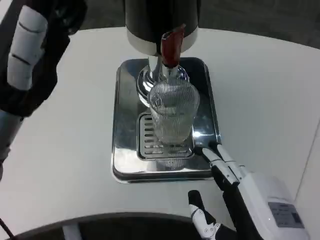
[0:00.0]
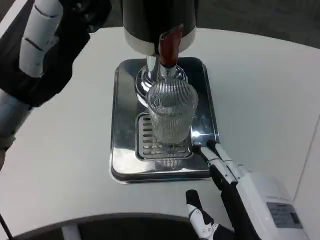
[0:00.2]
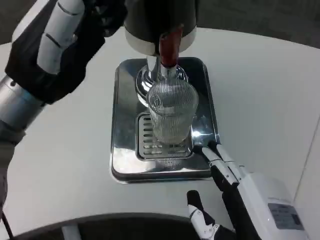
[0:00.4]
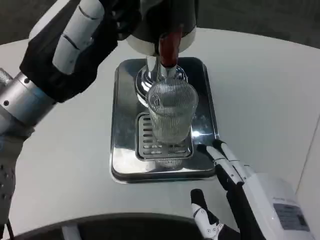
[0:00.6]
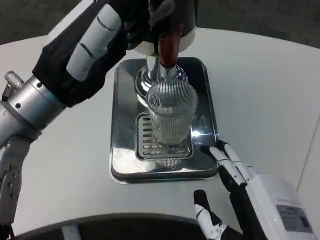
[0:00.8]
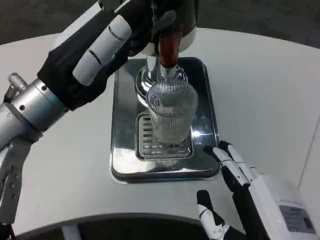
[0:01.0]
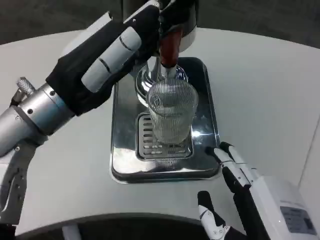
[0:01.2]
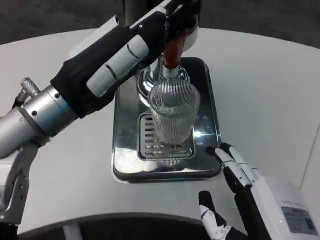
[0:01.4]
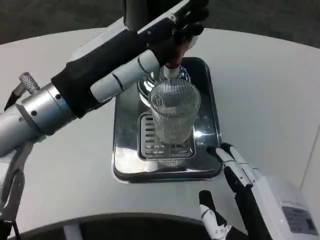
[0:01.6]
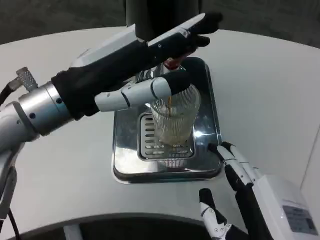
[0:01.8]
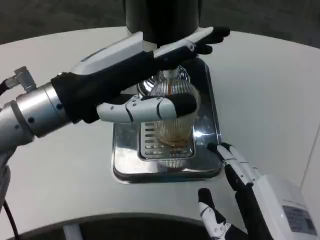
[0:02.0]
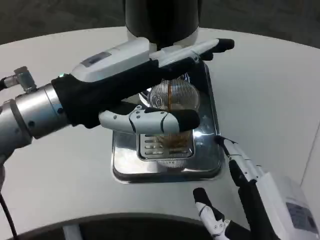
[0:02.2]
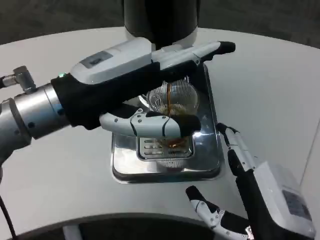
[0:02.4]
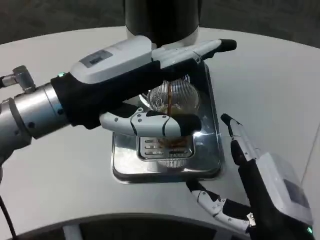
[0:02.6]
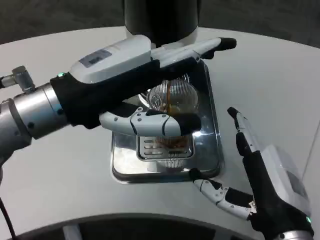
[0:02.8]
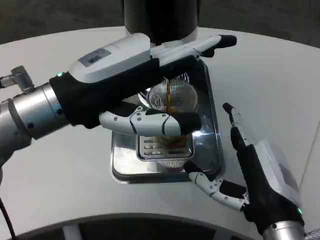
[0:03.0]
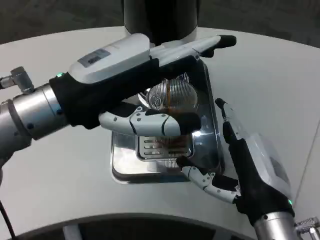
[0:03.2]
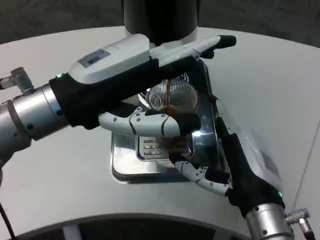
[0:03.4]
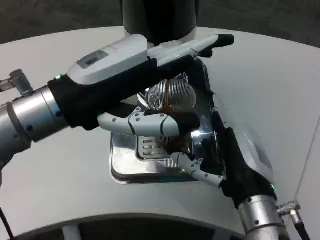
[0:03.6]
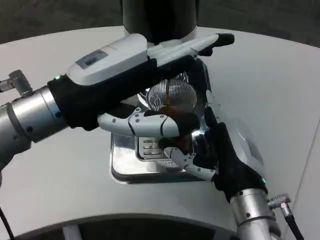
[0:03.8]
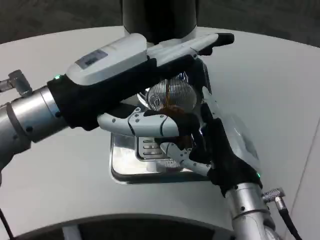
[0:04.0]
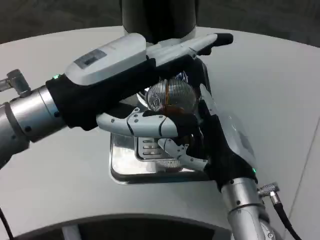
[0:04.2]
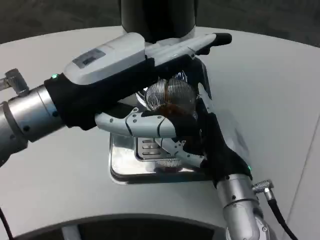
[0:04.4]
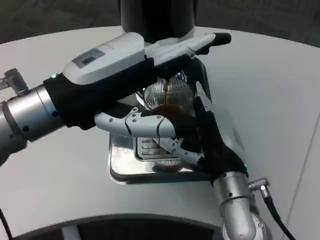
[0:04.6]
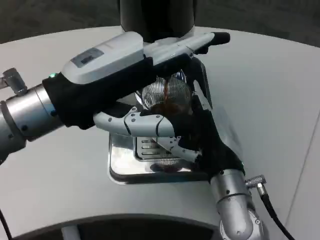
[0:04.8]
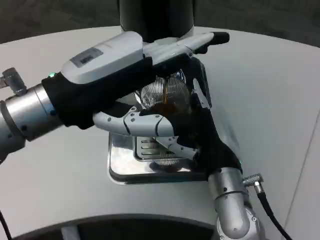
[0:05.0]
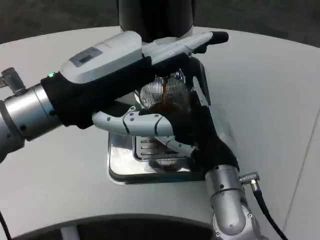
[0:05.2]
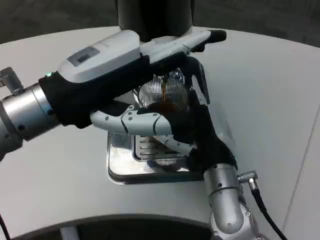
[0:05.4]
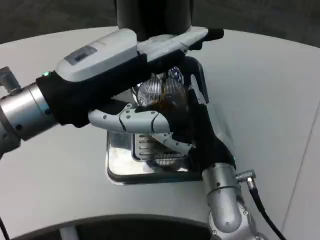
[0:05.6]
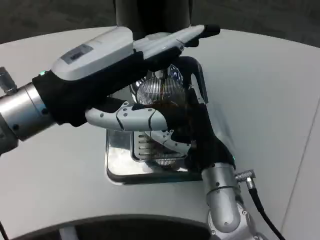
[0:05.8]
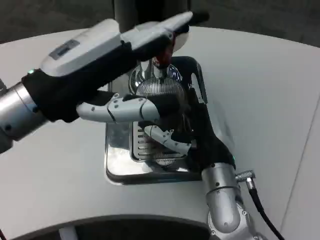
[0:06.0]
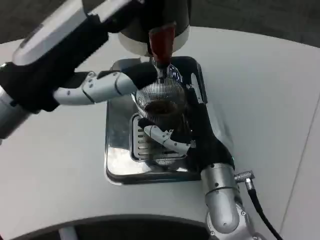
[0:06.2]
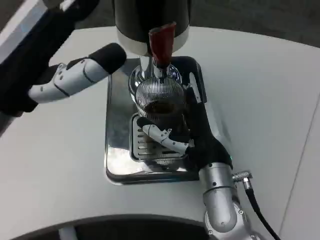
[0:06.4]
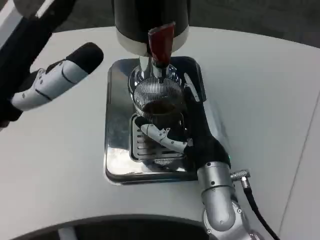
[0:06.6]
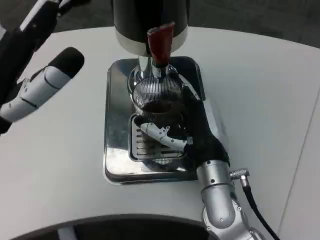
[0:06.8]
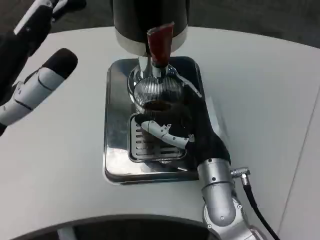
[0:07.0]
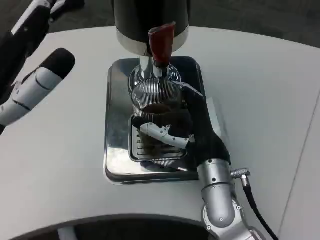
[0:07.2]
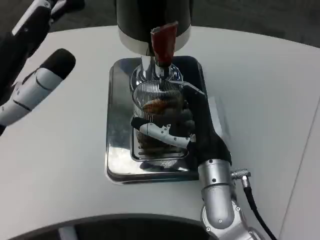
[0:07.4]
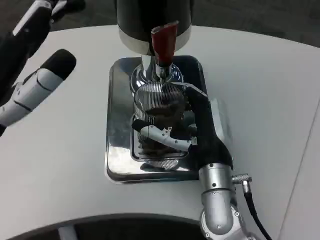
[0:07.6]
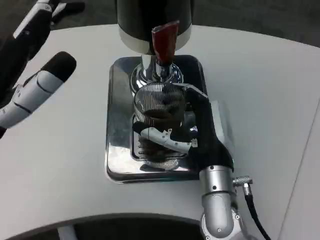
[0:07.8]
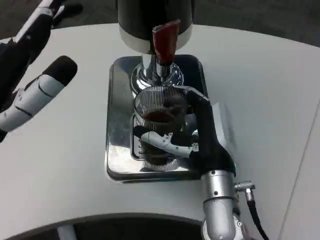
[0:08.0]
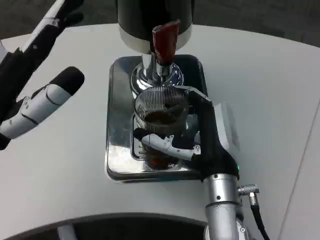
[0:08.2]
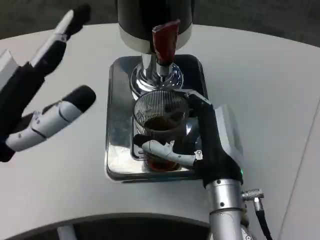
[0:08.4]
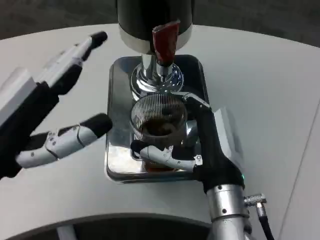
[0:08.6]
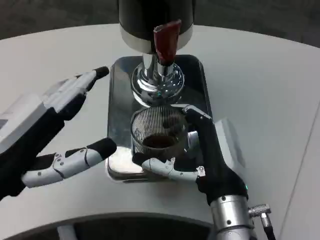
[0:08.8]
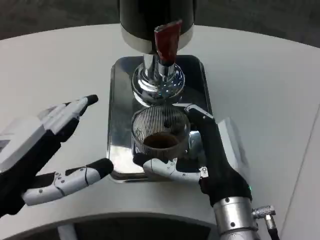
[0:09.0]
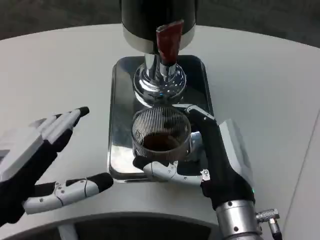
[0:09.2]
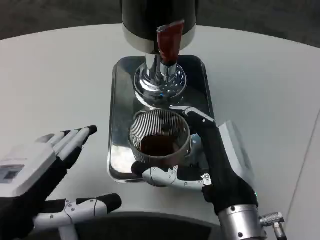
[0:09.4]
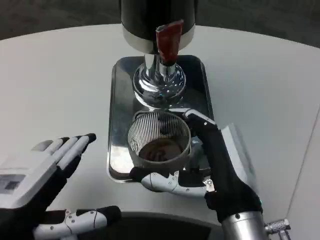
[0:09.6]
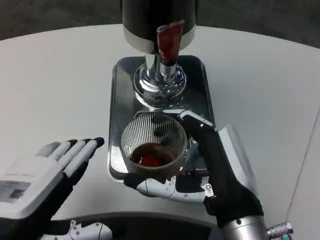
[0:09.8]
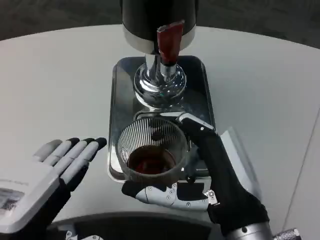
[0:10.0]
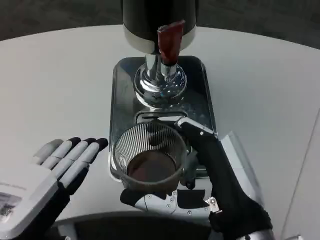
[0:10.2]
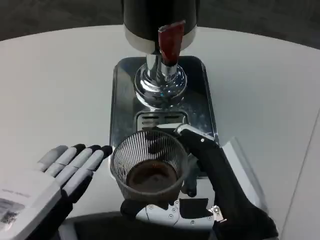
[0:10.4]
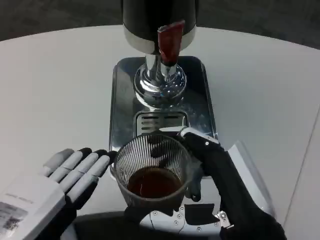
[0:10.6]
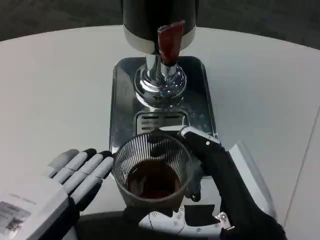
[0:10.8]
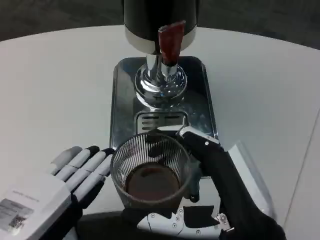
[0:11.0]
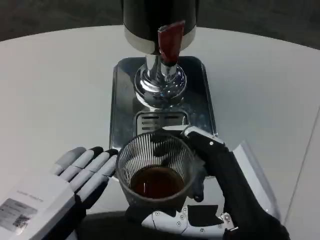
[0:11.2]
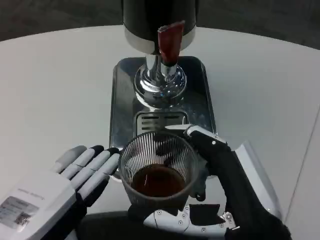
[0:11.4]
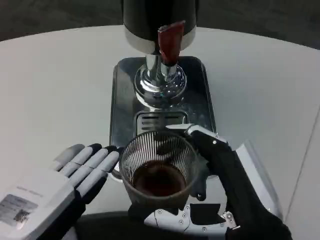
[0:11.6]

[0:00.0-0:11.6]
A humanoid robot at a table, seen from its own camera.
Task of the whole recording: Grasp the cup under the faucet to collect the drink, then remove the cup.
0:01.4 to 0:02.8: The right hand travels forward by roughly 5 cm.
0:02.8 to 0:04.4: The right hand goes about 10 cm forward.
0:05.8 to 0:07.2: The left hand changes place by approximately 10 cm.
0:07.2 to 0:08.8: The right hand heads backward, covering roughly 5 cm.
0:08.8 to 0:10.2: Both hands move backward, some 5 cm.

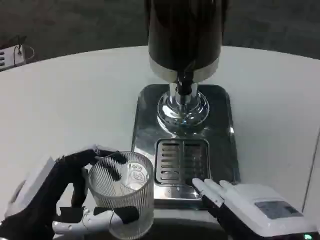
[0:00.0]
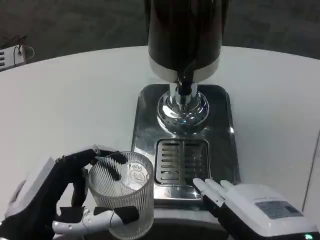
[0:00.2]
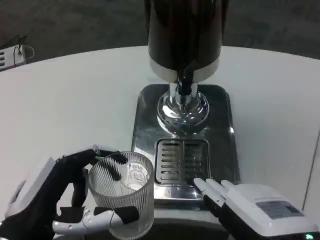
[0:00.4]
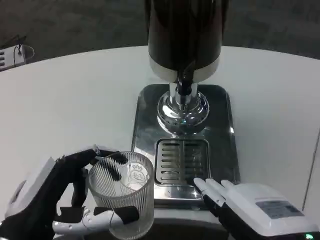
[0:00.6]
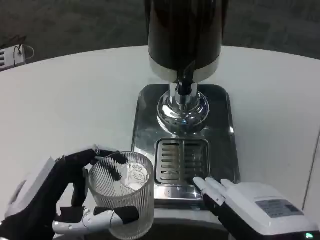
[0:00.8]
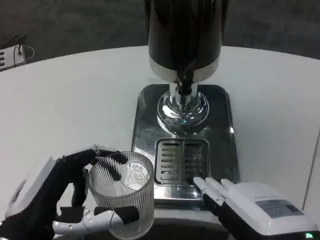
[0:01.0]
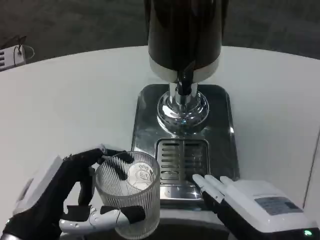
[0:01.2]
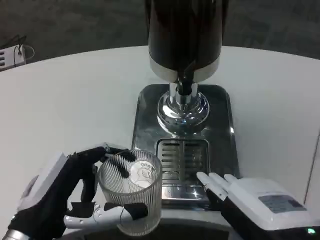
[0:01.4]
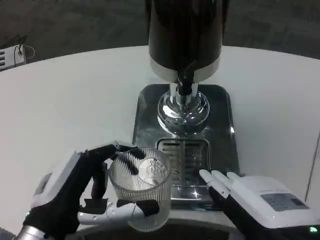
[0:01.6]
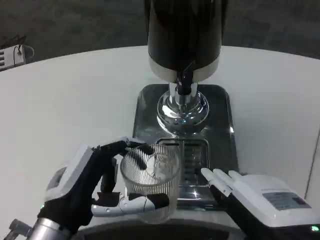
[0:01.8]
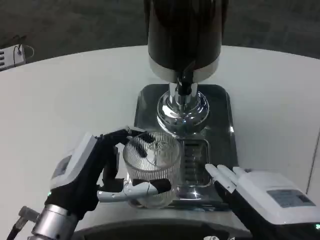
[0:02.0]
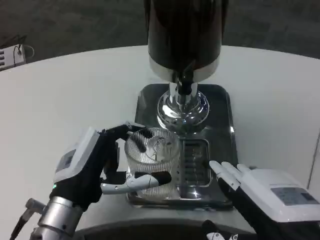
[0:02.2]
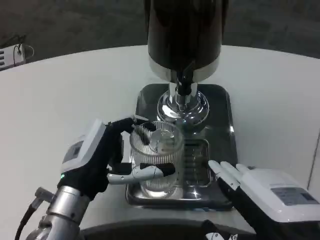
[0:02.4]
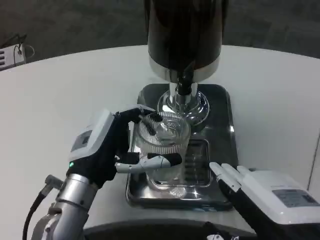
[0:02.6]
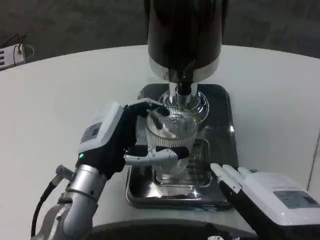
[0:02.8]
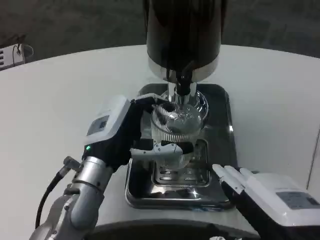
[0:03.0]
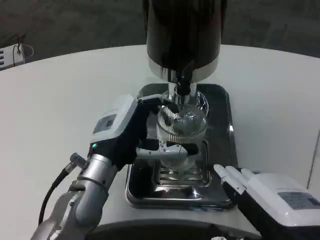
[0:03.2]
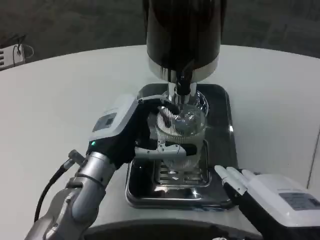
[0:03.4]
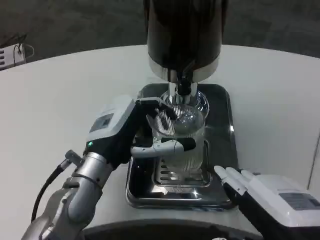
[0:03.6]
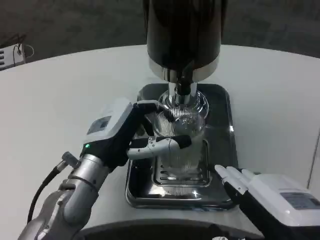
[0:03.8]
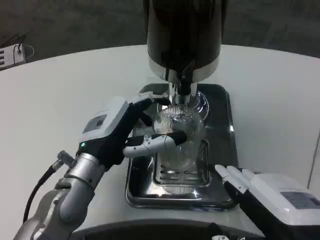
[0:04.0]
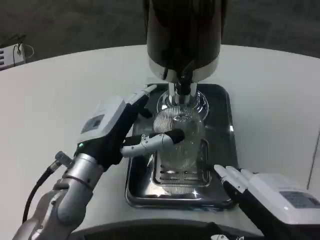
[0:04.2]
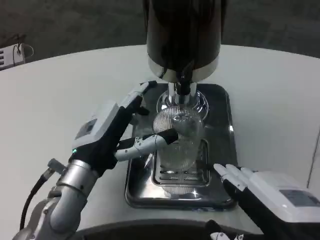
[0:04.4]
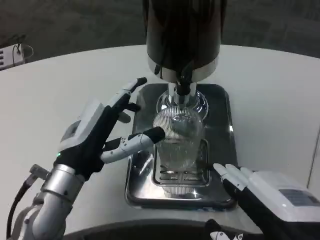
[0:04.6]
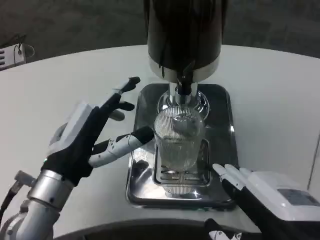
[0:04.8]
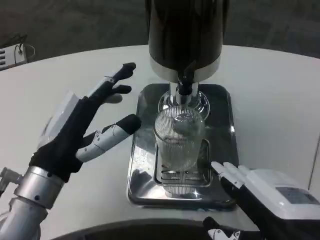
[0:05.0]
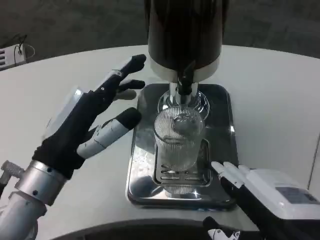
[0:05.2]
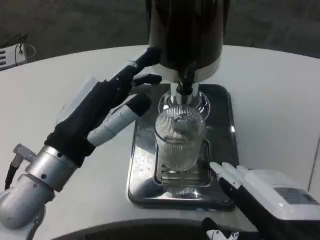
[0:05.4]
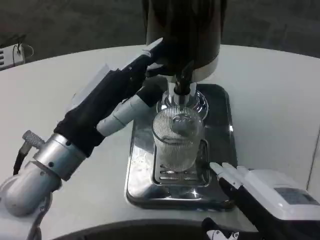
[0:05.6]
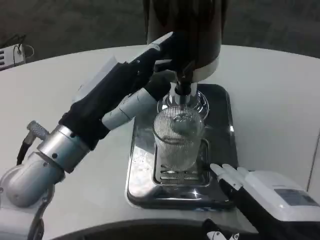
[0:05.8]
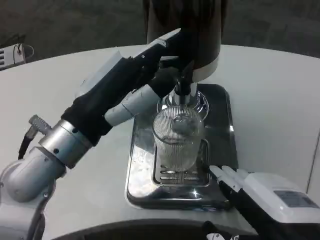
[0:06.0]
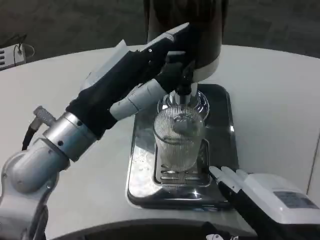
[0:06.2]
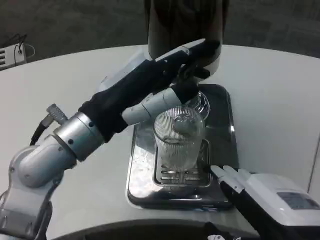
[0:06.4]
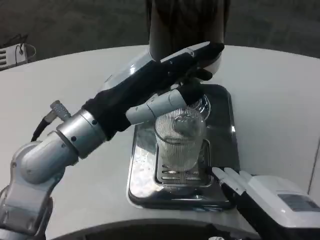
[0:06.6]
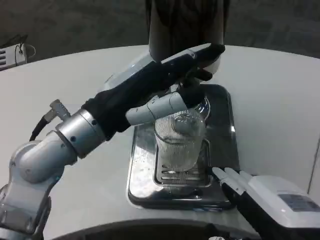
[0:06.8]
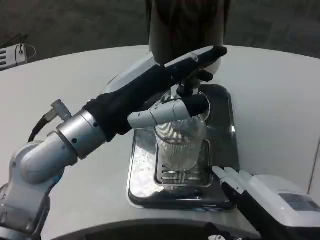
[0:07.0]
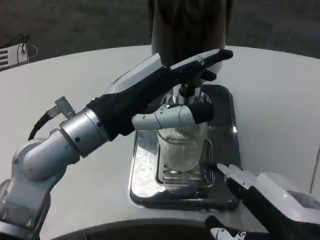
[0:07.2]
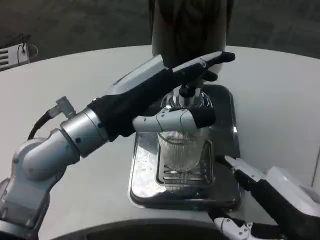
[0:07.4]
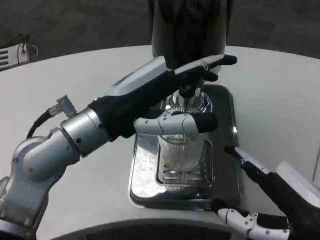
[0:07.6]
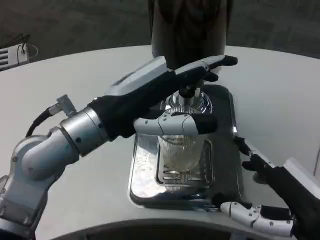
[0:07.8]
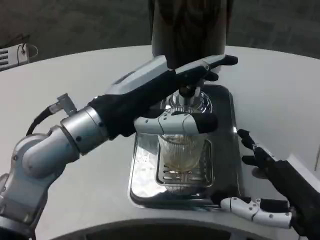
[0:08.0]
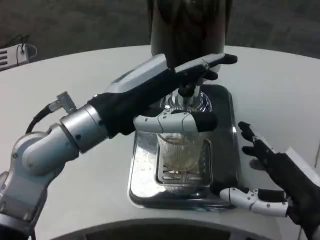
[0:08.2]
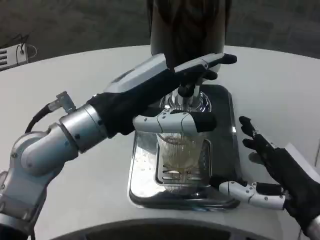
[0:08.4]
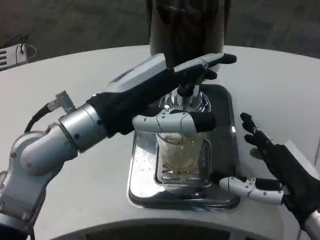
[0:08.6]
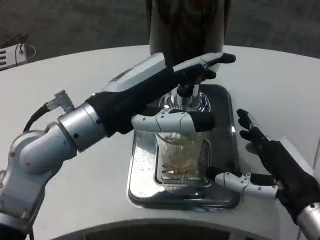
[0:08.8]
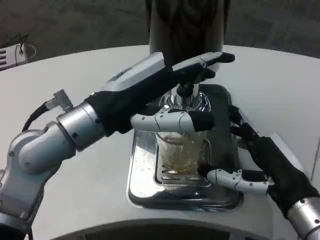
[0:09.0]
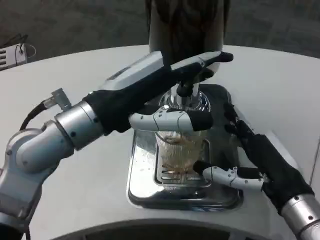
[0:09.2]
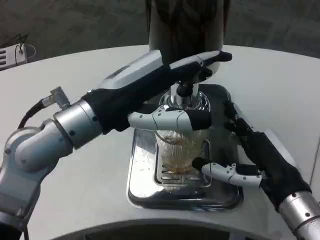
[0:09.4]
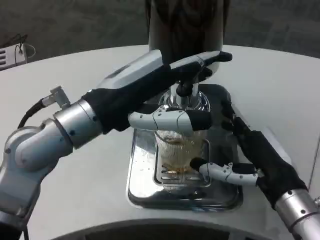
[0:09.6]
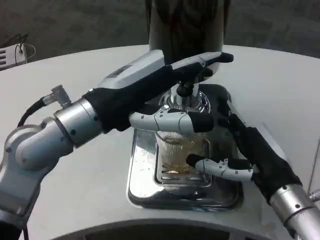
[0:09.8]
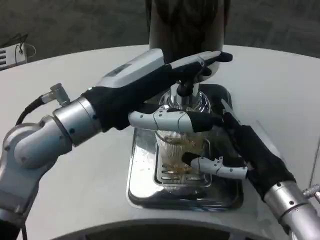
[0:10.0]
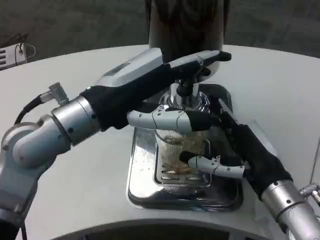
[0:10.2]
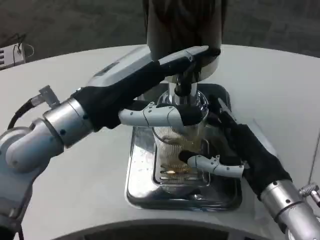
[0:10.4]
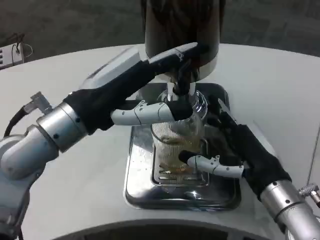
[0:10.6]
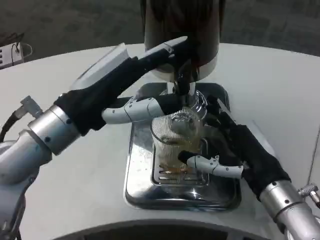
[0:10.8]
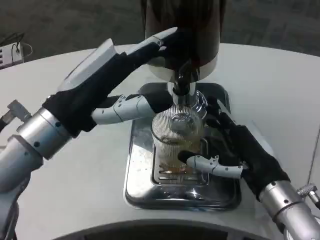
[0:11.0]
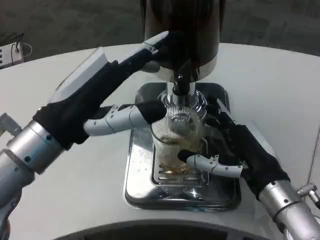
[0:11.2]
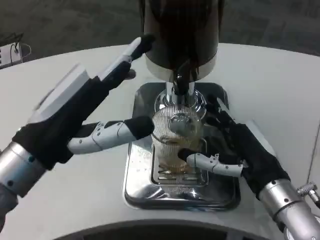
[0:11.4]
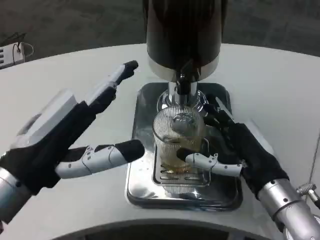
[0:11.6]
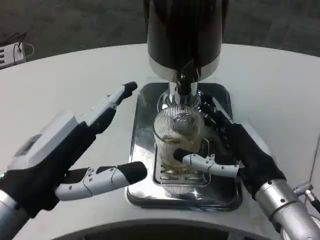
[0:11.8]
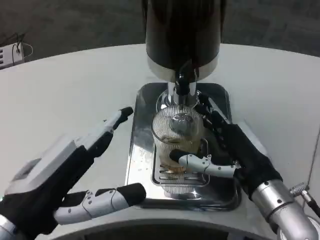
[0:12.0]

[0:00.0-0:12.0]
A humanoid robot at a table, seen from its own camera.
Task of the whole recording: Grasp the cup under the faucet to collect the drink, then remove the cup.
0:00.0 to 0:01.6: The hands make only small movements.
0:01.6 to 0:03.0: The left hand is displaced forward and to the right by some 10 cm.
0:03.0 to 0:04.4: The hands move only a little.
0:04.4 to 0:06.0: The left hand shifts some 10 cm upward.
0:07.6 to 0:09.0: The right hand travels forward by approximately 10 cm.
0:10.4 to 0:12.0: The left hand goes some 15 cm backward and downward.
